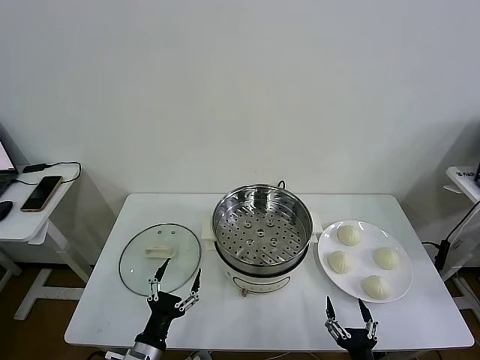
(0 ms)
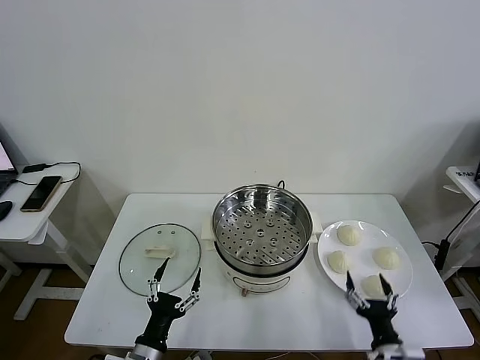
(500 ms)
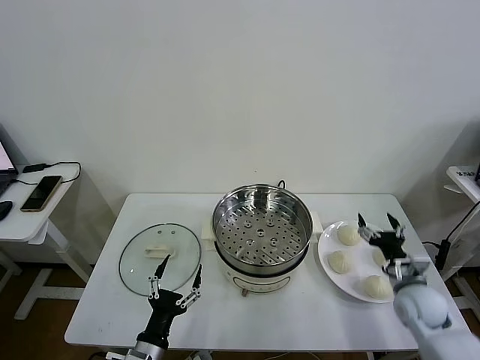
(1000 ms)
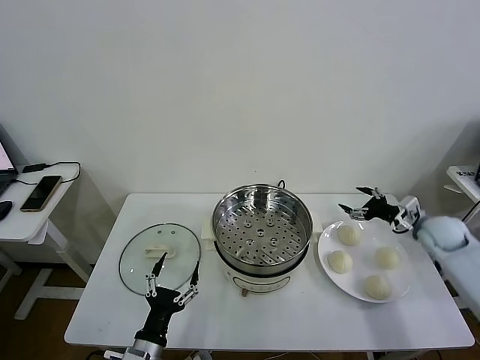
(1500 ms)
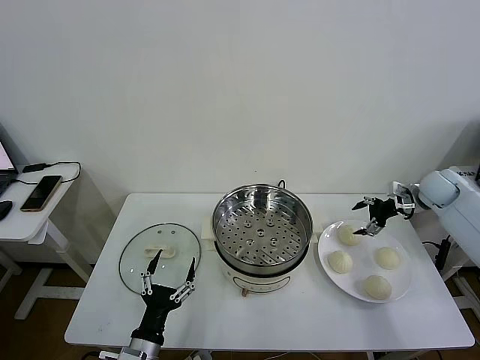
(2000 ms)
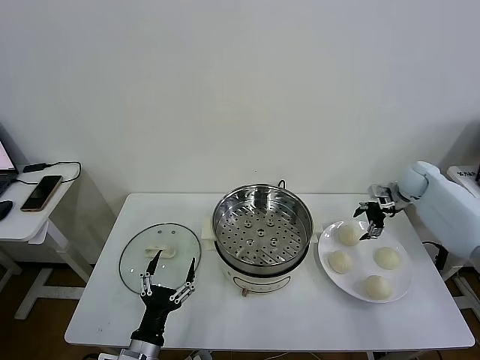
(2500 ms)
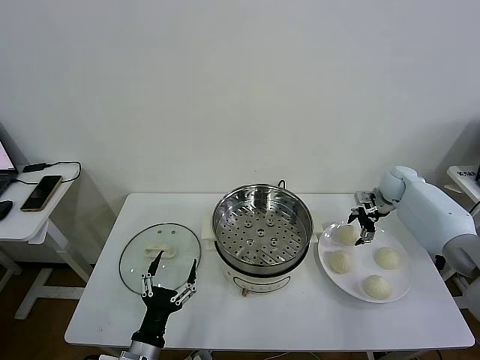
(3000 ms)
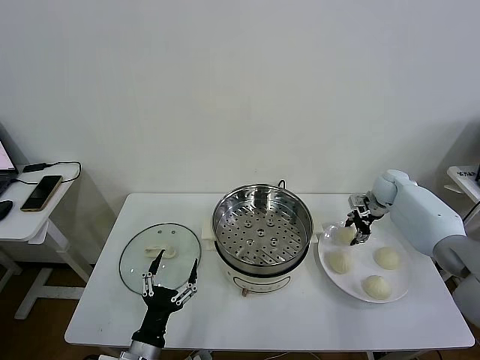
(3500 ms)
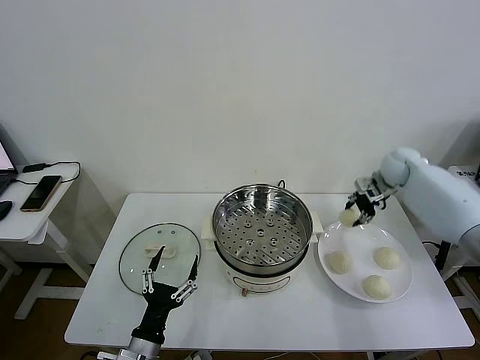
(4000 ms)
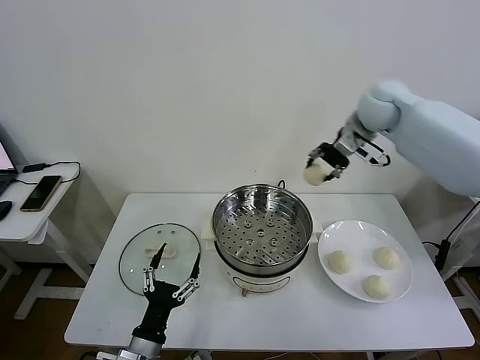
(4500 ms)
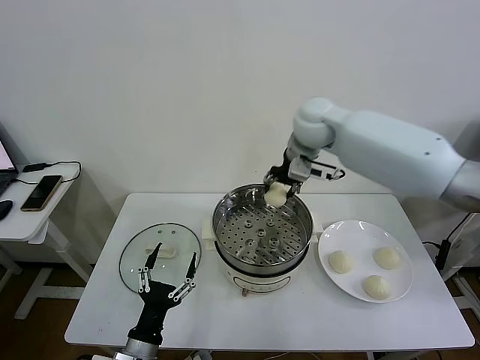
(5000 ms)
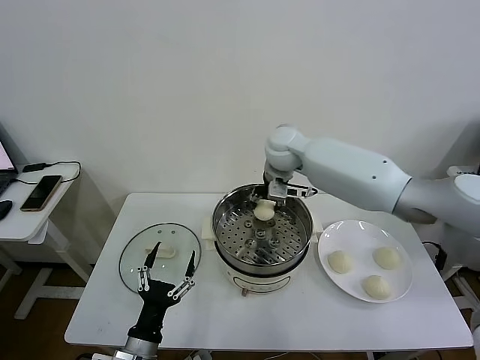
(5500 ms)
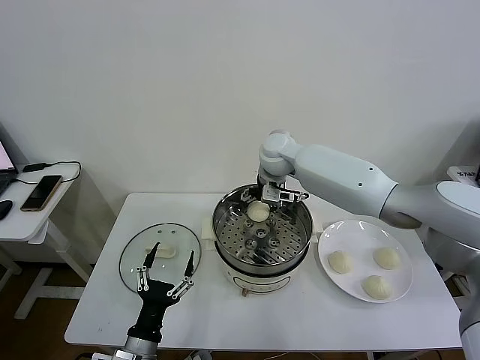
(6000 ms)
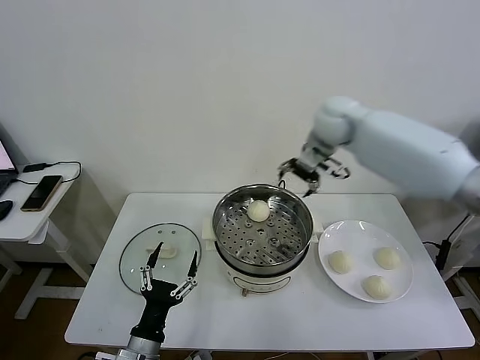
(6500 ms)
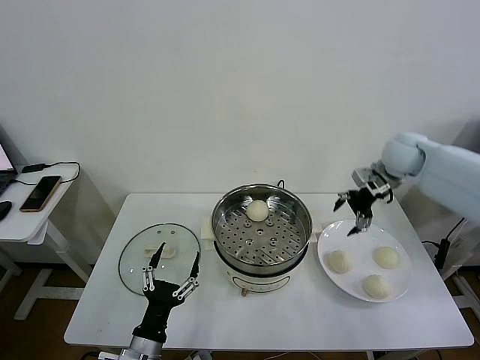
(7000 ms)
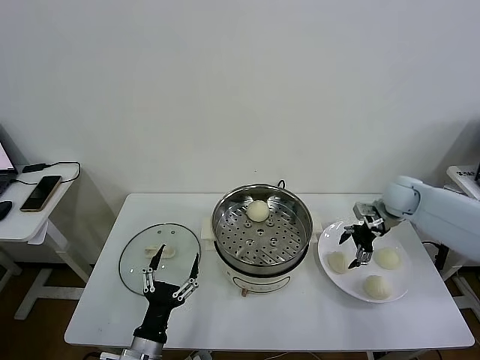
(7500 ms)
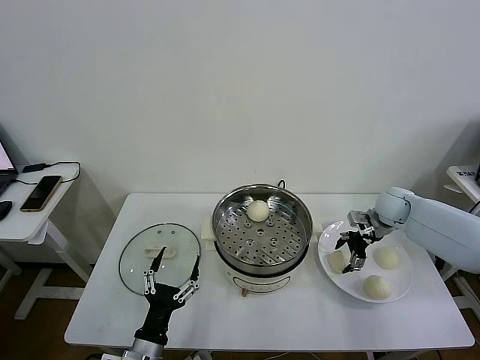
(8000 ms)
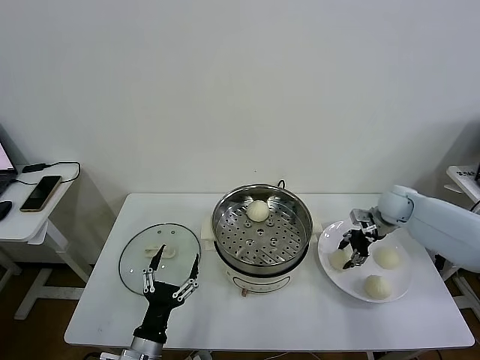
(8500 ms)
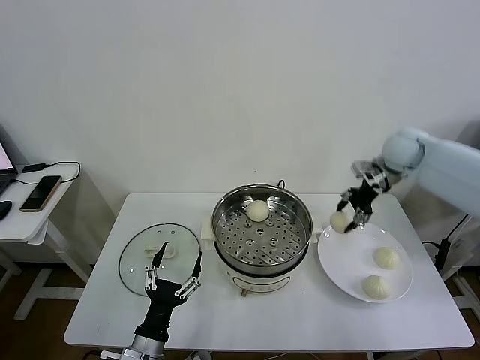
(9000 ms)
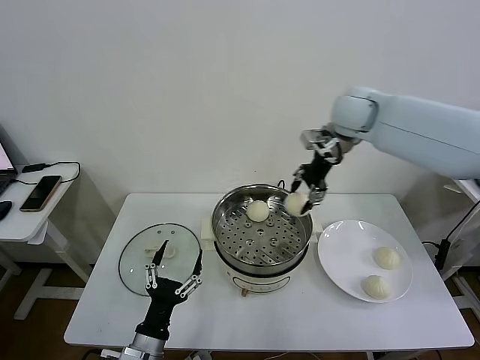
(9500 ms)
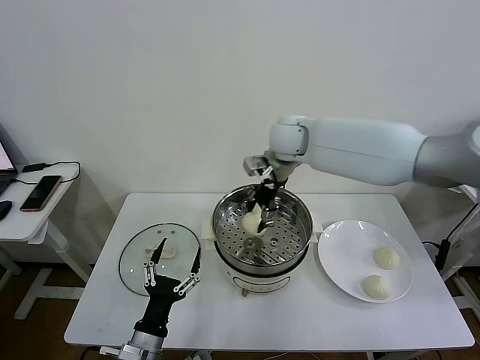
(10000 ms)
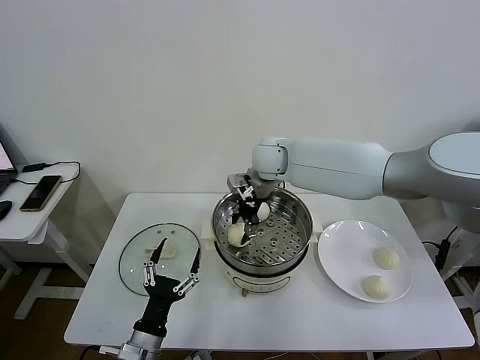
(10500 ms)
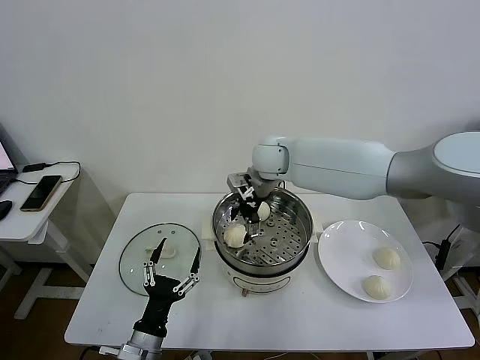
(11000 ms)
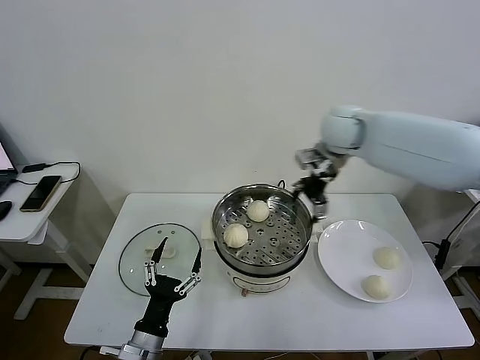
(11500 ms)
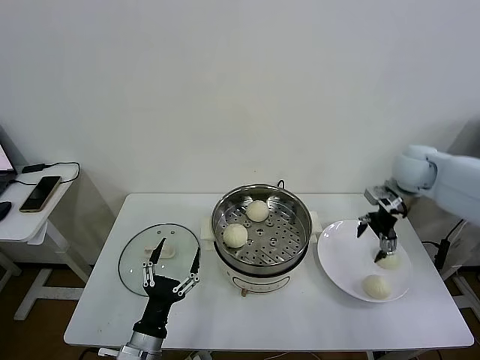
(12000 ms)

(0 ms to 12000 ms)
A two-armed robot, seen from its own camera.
Task of the whole recording: take steamed baozi put them in steamer then cover it.
Step, 0 ms - 3500 ms: Grasp the baozi in the plate with right gripper.
Step, 4000 ms - 6000 ms: Place the baozi on the steamer with right gripper.
Step, 6500 ms - 8000 ms: Grasp the baozi in the plate with right gripper.
Step, 8500 ms - 10500 ms: Place the baozi on the steamer with right gripper.
2000 ms - 4000 ms: The right gripper heads to the left, upward and forward, covering some 10 cm, and closes.
4000 ms - 6000 ms: The right gripper heads to the left, covering some 30 cm, and opens up.
6000 ms - 8000 ms: The right gripper moves to the right and downward, roughly 35 cm.
8000 ms - 10000 ms: The right gripper travels to the left and upward by approximately 35 cm, and closes its fingers.
10000 ms - 12000 ms: The right gripper travels to the right by roughly 30 cm, and opens up.

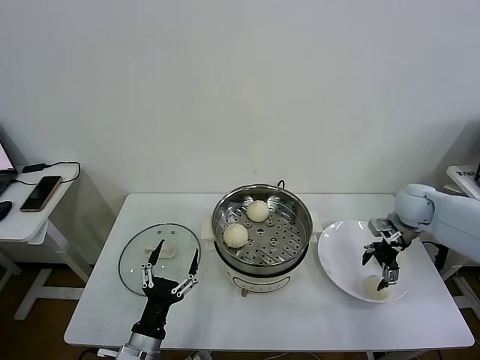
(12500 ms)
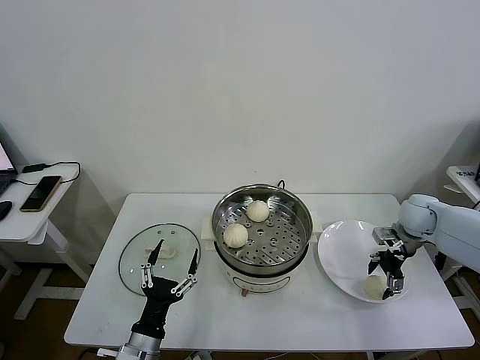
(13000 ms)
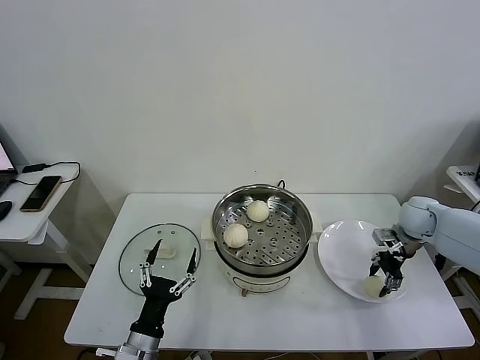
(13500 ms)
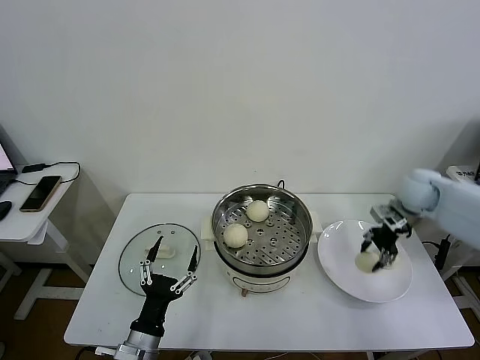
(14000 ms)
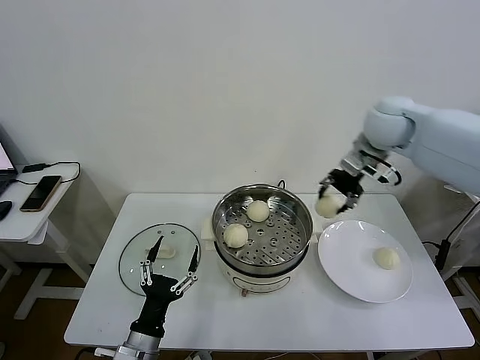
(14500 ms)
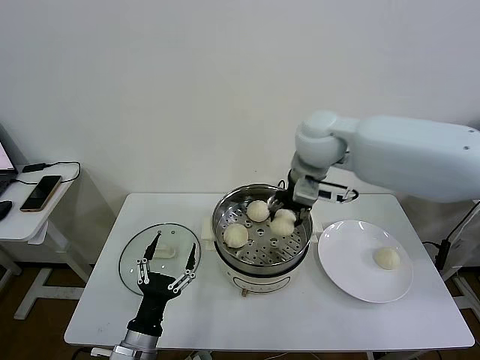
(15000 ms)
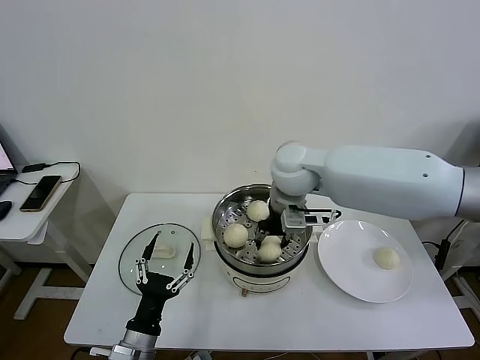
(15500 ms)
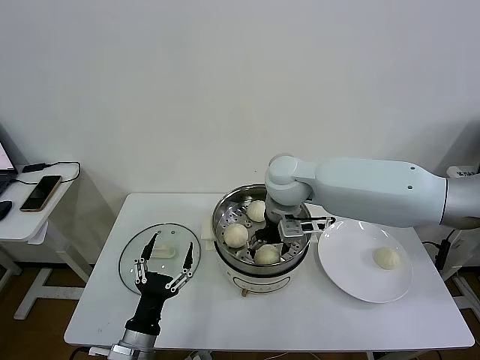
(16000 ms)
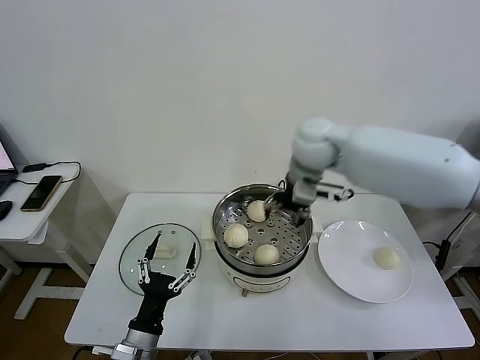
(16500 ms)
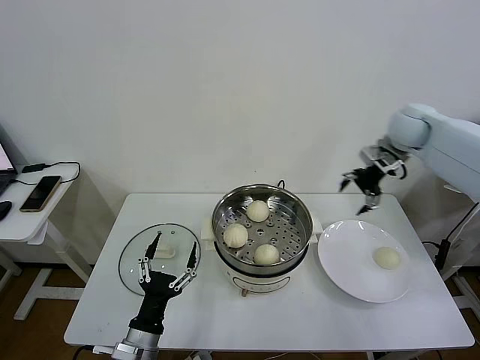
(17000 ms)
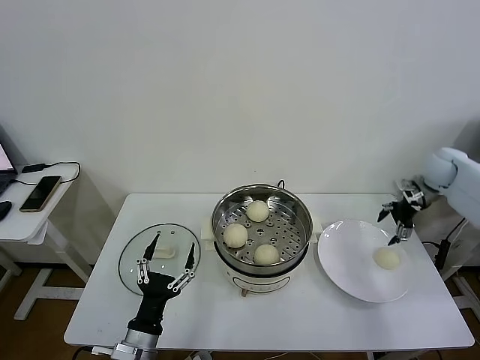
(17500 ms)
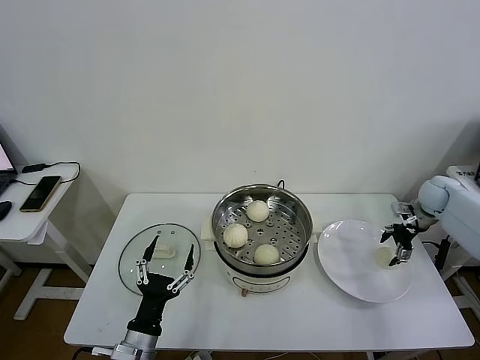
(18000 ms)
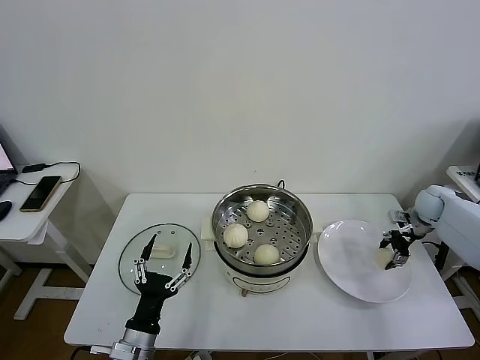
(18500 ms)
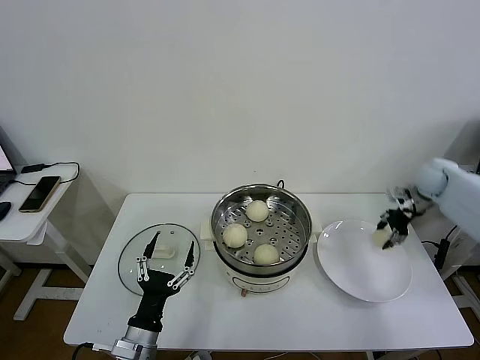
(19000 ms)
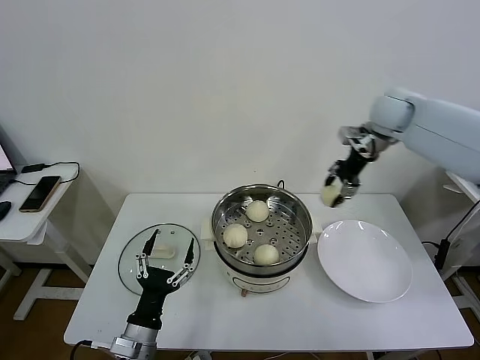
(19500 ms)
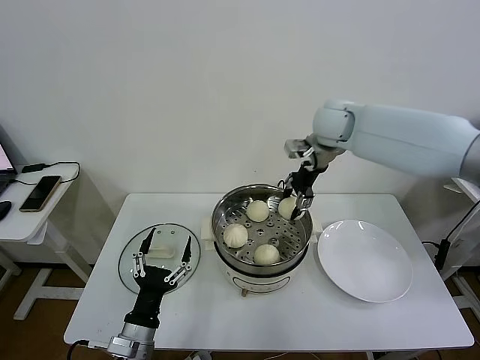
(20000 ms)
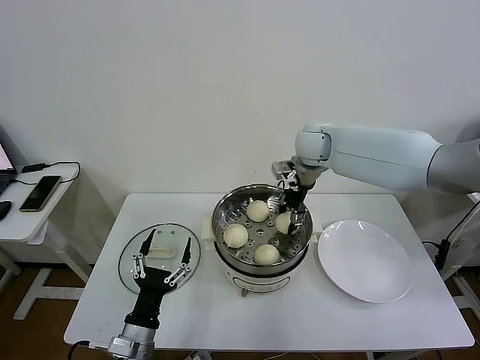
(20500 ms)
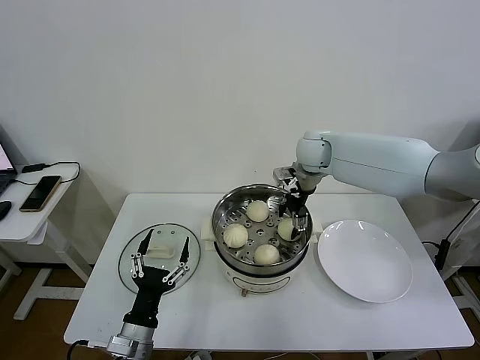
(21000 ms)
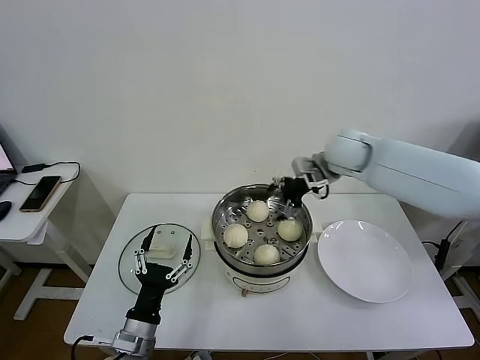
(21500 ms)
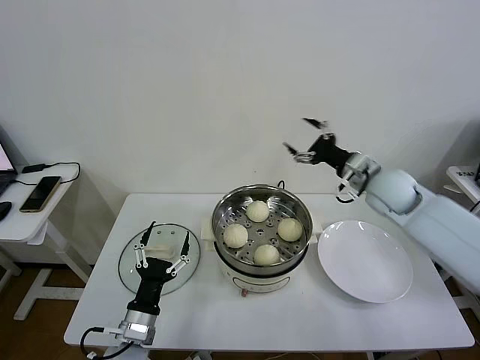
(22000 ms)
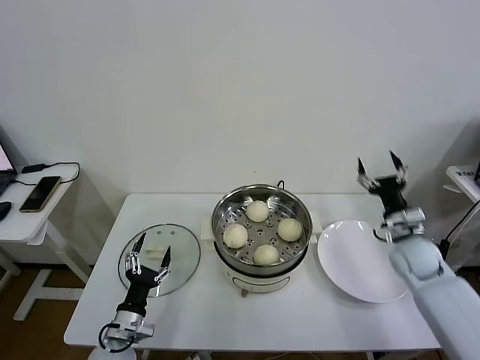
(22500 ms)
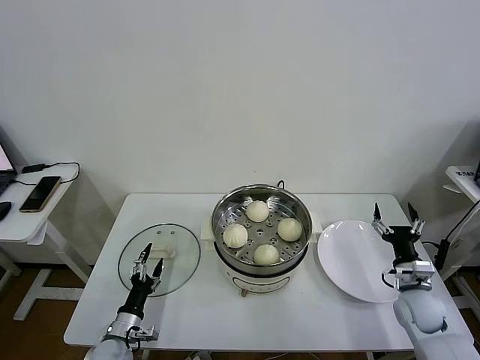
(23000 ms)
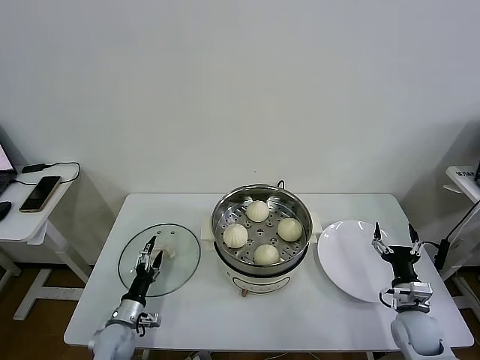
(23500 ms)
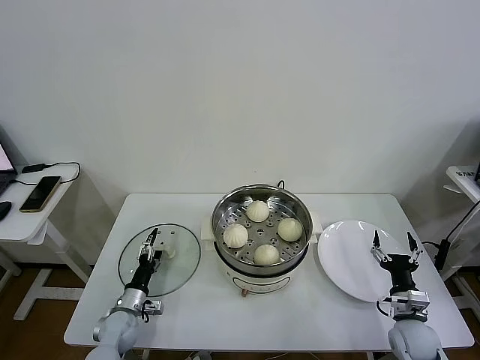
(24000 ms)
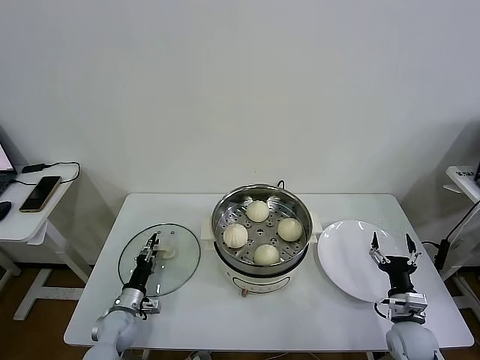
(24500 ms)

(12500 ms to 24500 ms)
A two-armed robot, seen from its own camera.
Task of the whole recording: take steamed baozi put them in steamer then cover it.
Step, 13500 ms - 15500 ms: Place the baozi on the steamer with right gripper.
Step, 16000 ms - 18500 ms: Grasp the baozi in the plate with right gripper.
Step, 19000 ms - 20500 ms: Place the baozi on the steamer with right gripper.
12500 ms - 14500 ms: The right gripper travels upward and to the left by about 25 cm, and closes up.
14500 ms - 16500 ms: The right gripper shifts roughly 10 cm to the left, and opens its fingers.
16500 ms - 18500 ms: The right gripper shifts roughly 40 cm to the right and downward, and closes its fingers.
18500 ms - 20500 ms: The right gripper travels to the left and upward by about 40 cm, and closes its fingers.
20500 ms - 22500 ms: The left gripper is displaced downward and to the left by about 10 cm, while the right gripper goes about 35 cm to the right, backward and downward, and opens up.
22500 ms - 24500 ms: The right gripper moves backward and downward, roughly 20 cm. The left gripper goes about 15 cm downward, forward and to the left, and closes.

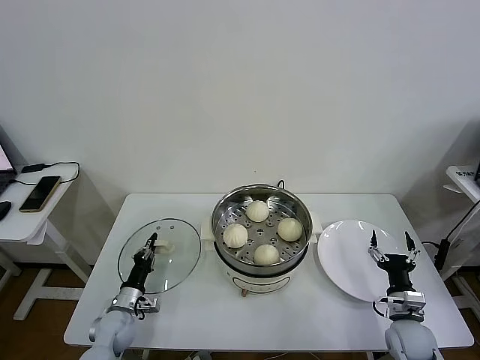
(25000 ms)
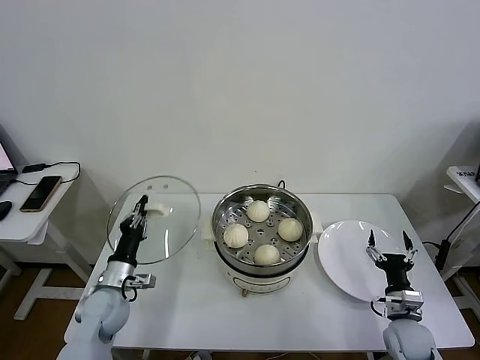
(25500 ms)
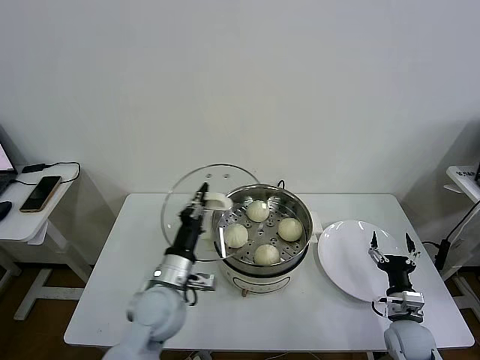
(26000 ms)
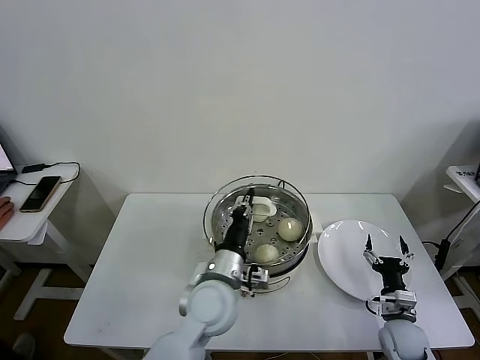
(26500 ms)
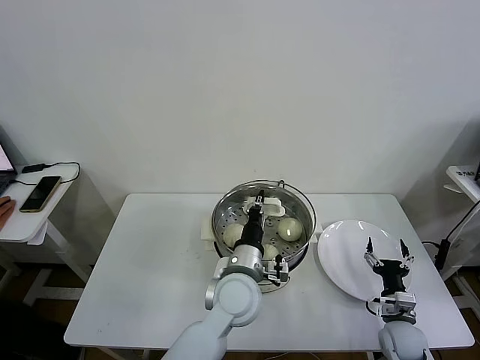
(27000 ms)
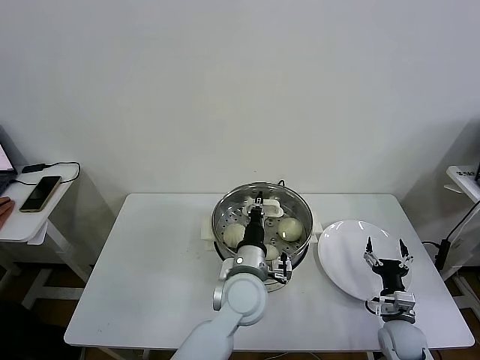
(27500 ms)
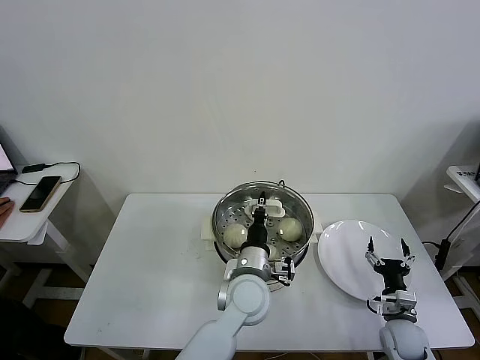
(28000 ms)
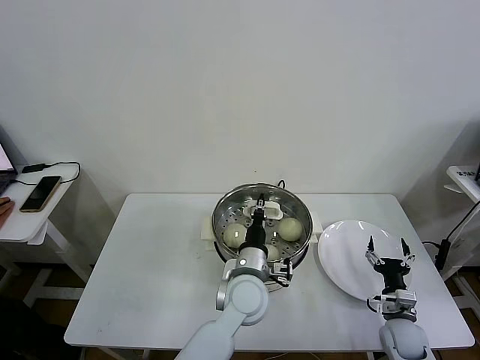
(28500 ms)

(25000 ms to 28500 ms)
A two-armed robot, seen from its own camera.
Task of the whole recording: take steamed baozi put them in steamer then cover it.
25000 ms - 27000 ms: The left gripper goes approximately 40 cm to the right and upward.
27000 ms - 28500 ms: There are only small adjustments of the grippers.
